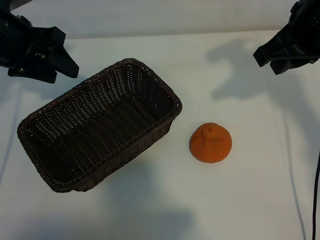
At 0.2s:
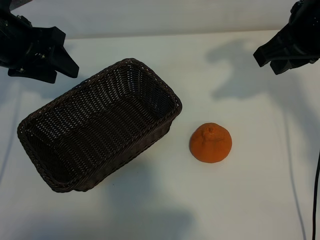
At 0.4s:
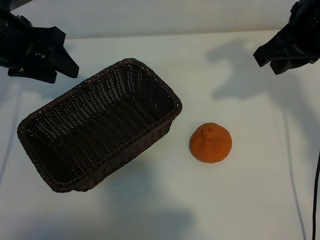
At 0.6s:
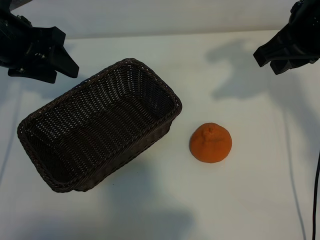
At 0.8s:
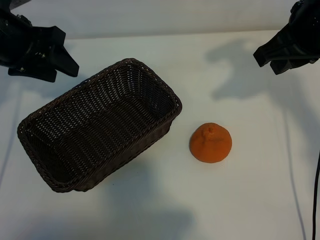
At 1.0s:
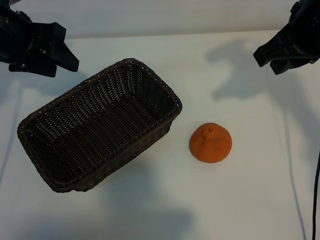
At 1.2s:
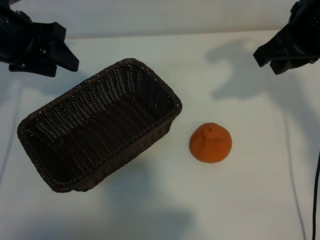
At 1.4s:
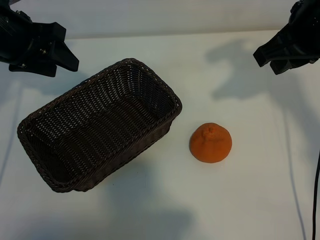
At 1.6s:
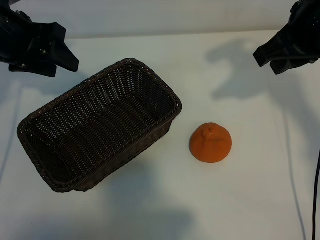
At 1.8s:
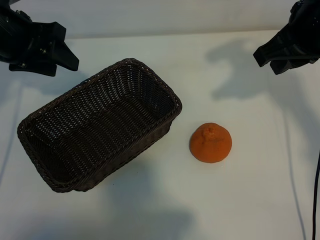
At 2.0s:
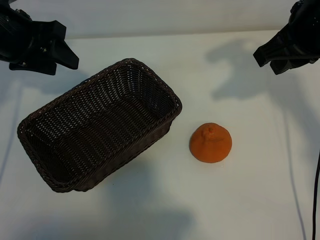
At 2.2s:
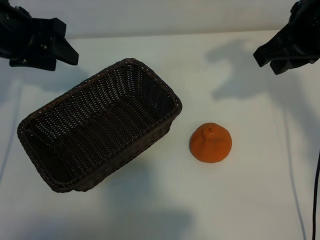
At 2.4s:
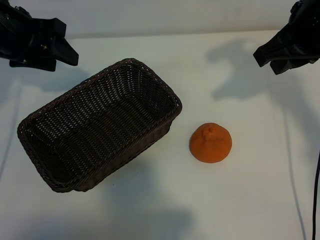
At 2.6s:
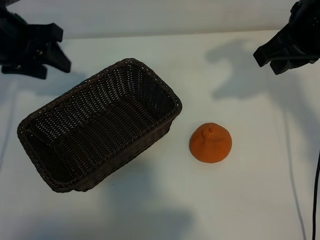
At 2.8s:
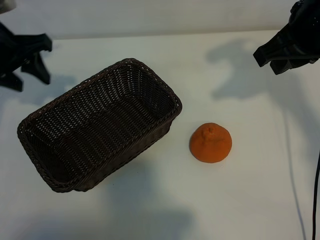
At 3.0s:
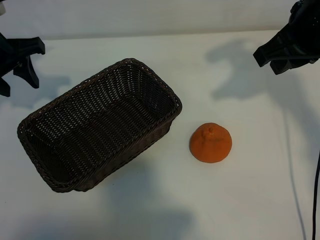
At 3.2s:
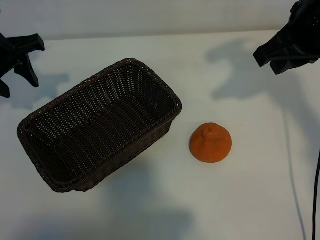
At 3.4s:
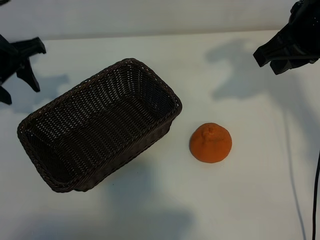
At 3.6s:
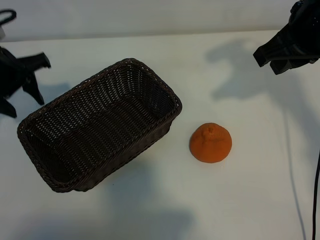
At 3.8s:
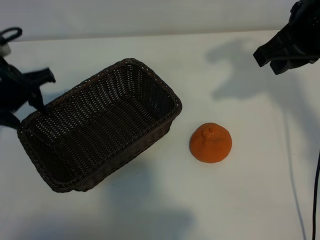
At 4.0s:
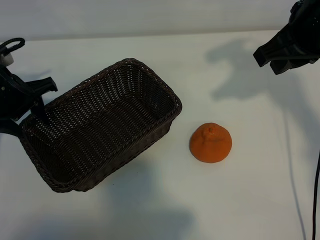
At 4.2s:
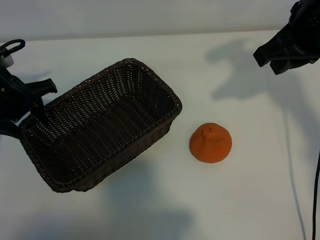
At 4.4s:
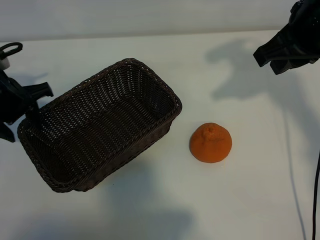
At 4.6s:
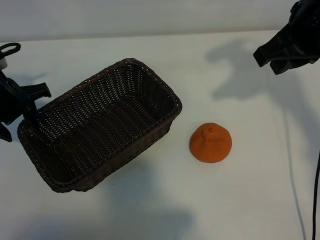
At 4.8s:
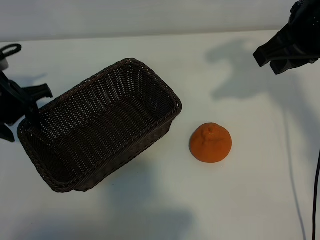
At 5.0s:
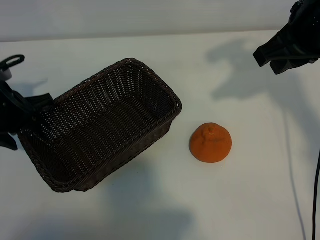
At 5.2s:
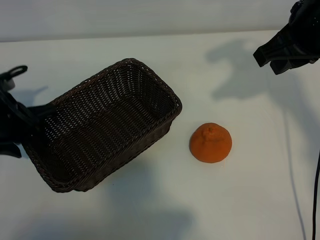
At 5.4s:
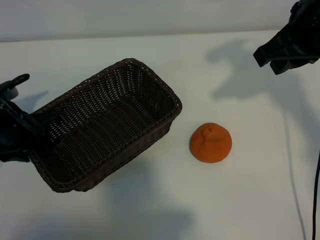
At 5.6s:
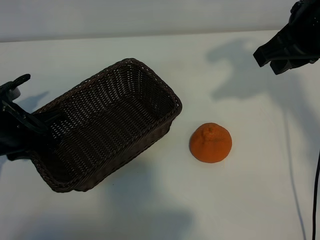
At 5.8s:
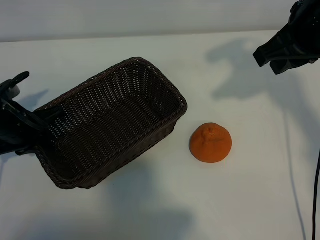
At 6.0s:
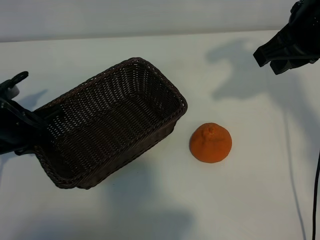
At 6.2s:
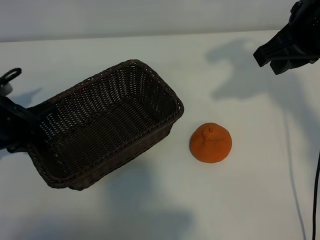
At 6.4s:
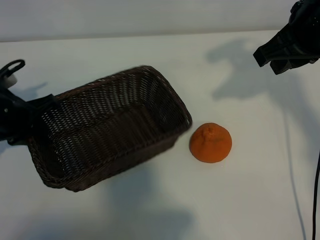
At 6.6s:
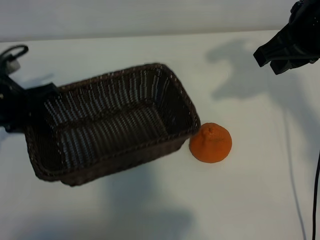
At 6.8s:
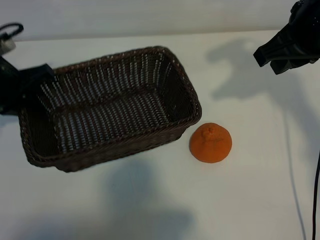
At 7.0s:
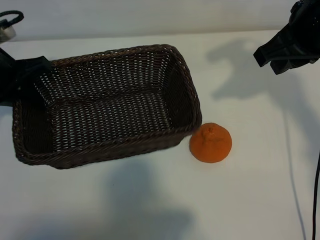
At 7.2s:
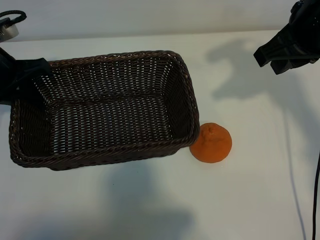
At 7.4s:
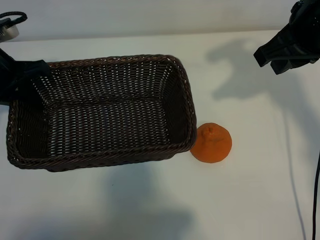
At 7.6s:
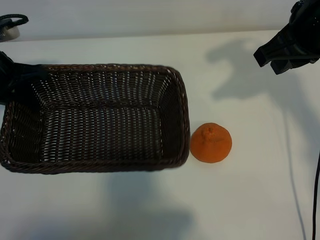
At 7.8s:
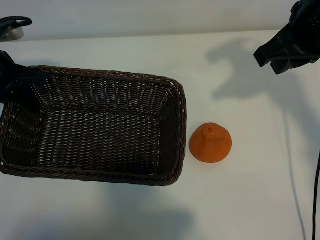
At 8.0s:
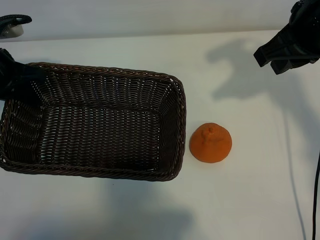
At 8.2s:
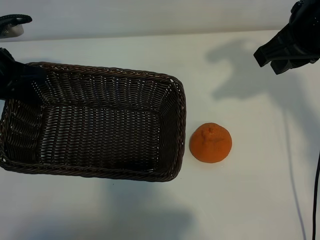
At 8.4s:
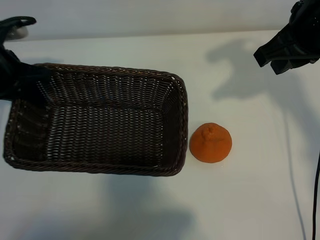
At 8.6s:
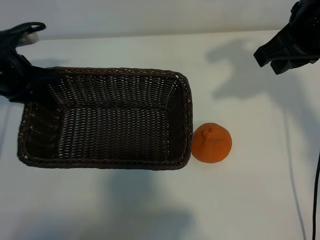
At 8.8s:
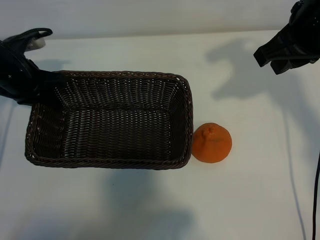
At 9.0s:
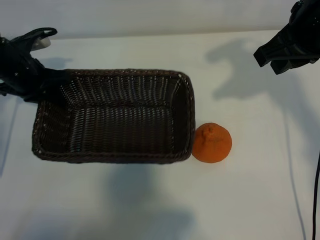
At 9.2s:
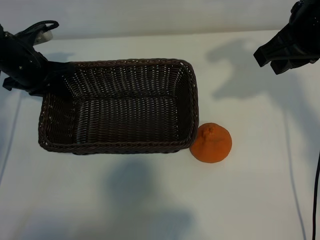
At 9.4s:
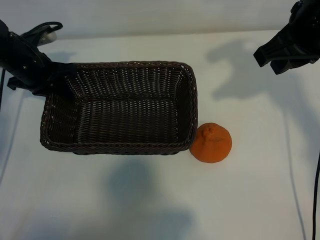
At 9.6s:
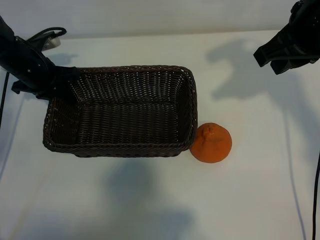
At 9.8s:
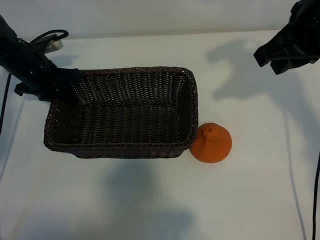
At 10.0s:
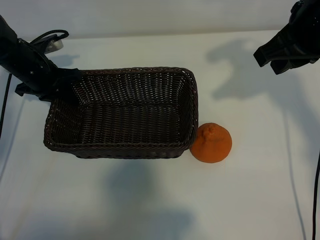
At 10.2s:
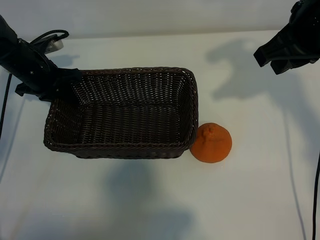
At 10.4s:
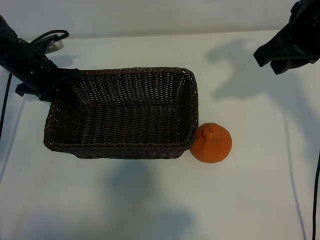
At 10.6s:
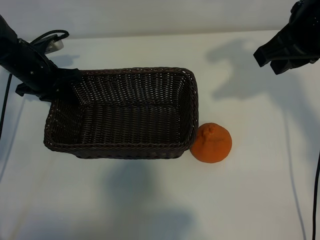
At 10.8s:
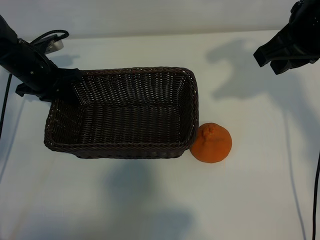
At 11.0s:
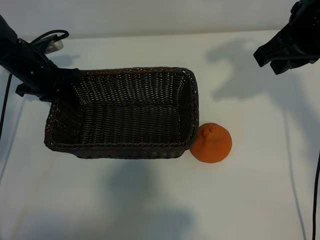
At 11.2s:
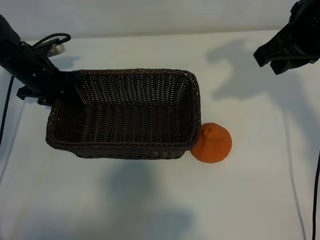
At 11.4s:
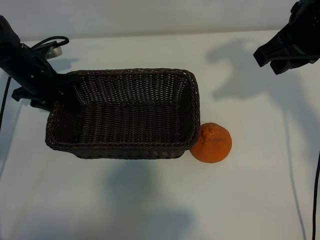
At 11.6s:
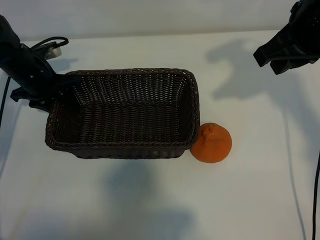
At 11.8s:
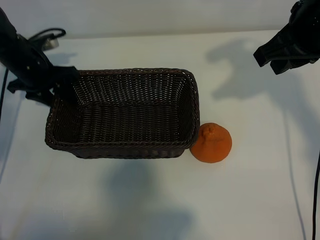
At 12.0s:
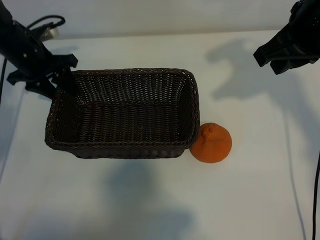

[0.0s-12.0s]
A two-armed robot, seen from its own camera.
Task of the whole recording: pick up the orange and put it into the basket.
Step, 0.8s to 5.8s: Grasp the basket with left gripper.
Step, 6.0s to 11.2s: Place the basket in the center of view with left gripper.

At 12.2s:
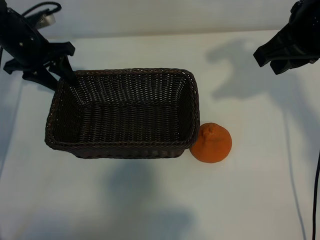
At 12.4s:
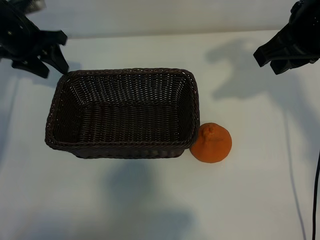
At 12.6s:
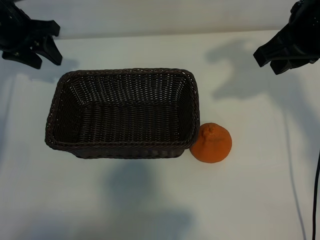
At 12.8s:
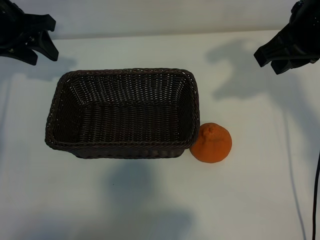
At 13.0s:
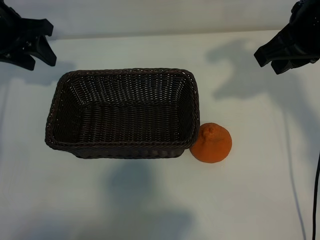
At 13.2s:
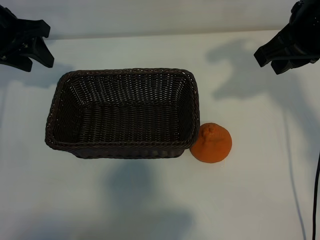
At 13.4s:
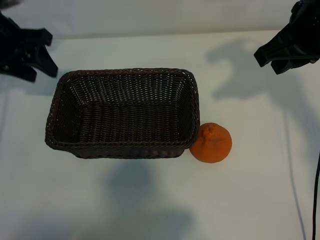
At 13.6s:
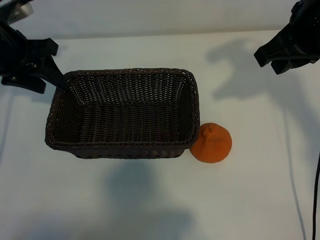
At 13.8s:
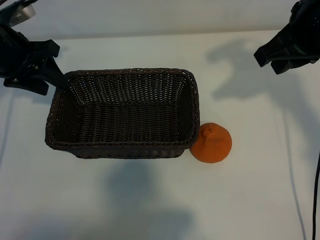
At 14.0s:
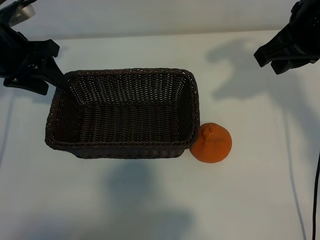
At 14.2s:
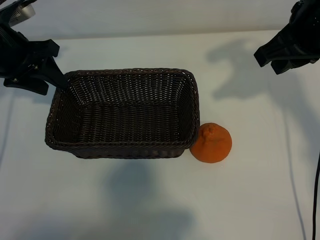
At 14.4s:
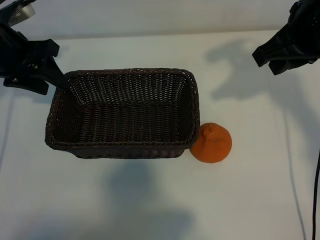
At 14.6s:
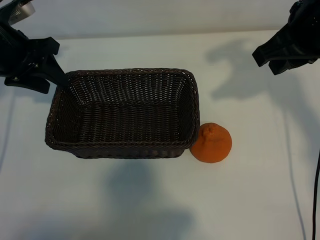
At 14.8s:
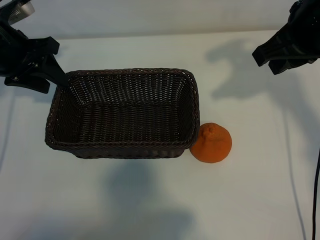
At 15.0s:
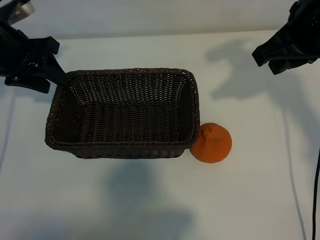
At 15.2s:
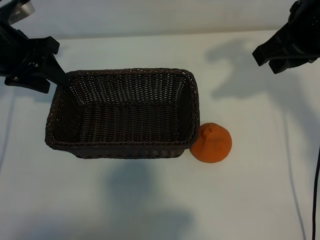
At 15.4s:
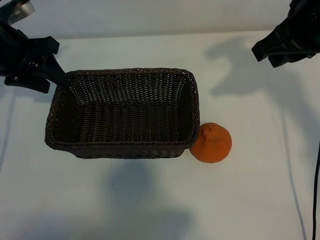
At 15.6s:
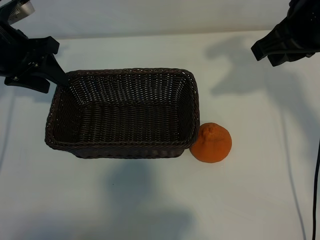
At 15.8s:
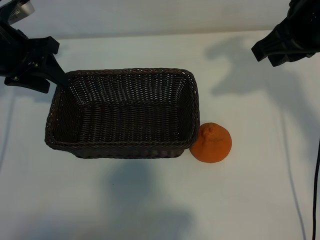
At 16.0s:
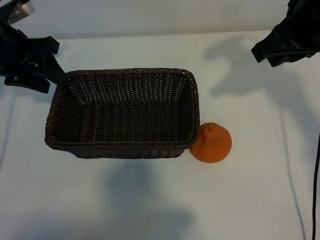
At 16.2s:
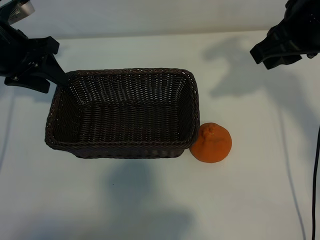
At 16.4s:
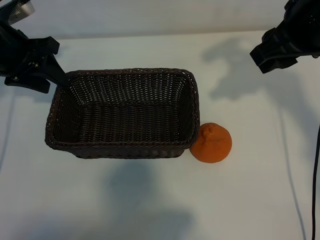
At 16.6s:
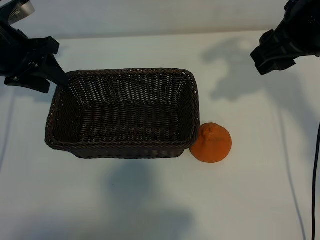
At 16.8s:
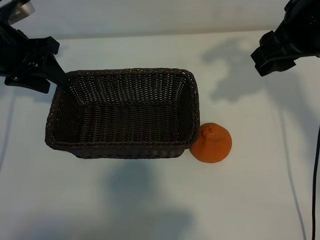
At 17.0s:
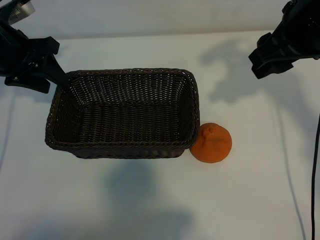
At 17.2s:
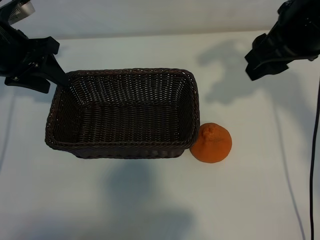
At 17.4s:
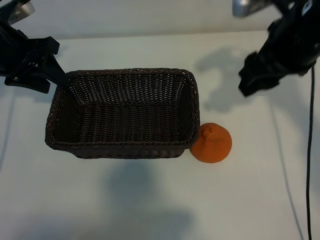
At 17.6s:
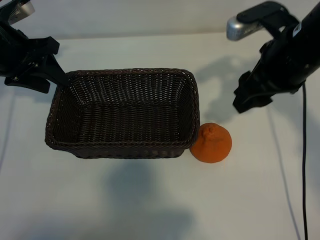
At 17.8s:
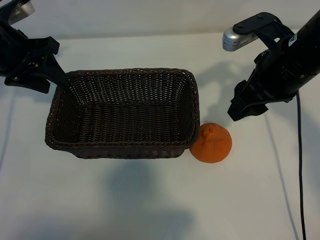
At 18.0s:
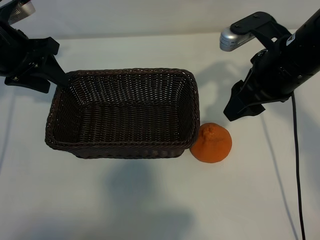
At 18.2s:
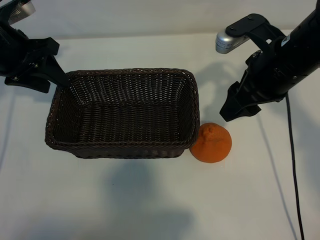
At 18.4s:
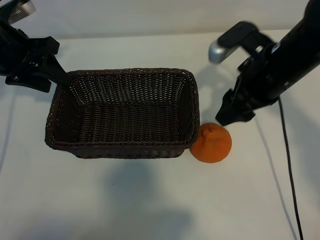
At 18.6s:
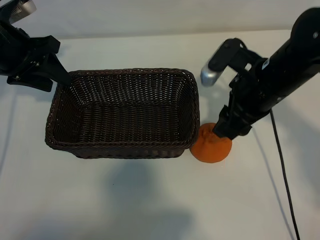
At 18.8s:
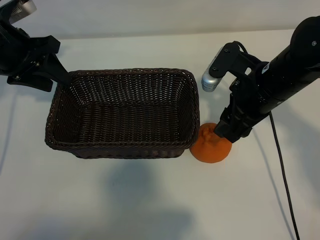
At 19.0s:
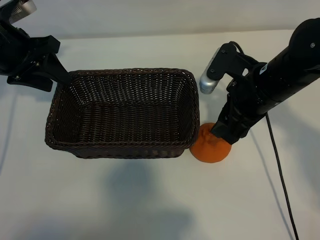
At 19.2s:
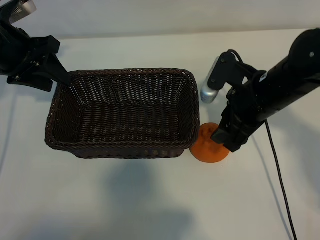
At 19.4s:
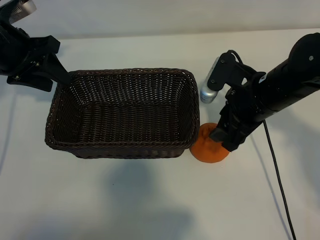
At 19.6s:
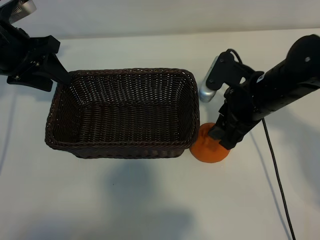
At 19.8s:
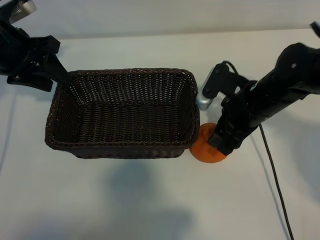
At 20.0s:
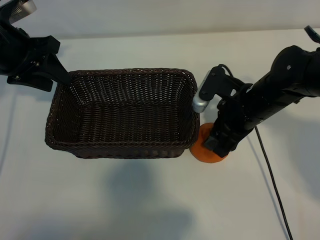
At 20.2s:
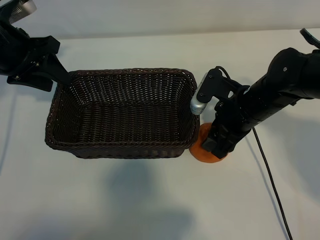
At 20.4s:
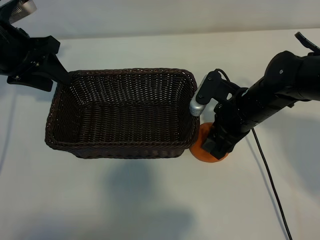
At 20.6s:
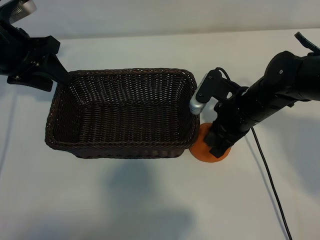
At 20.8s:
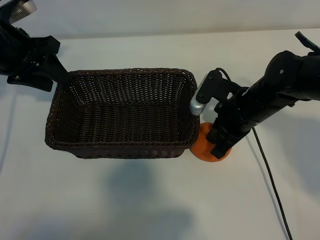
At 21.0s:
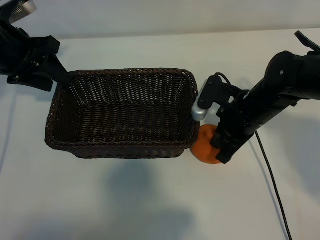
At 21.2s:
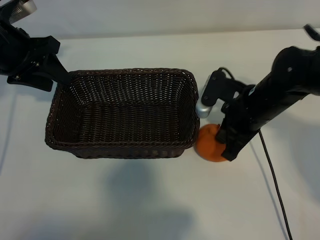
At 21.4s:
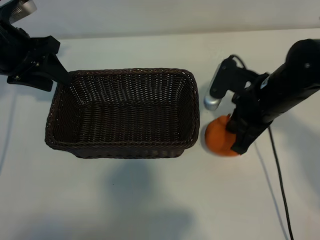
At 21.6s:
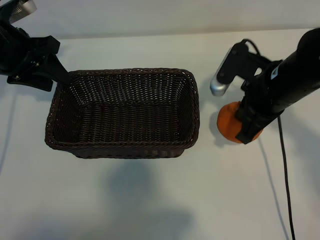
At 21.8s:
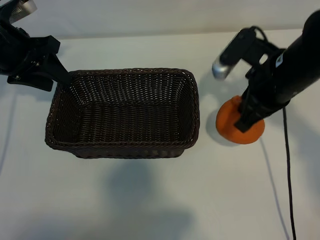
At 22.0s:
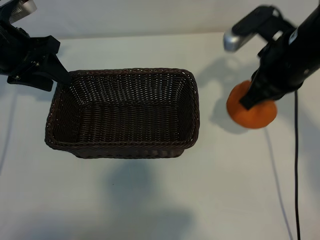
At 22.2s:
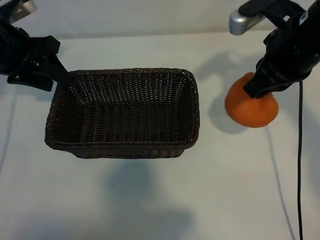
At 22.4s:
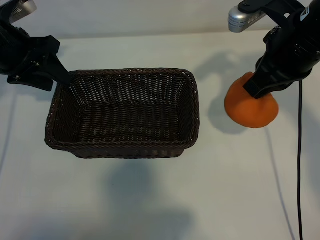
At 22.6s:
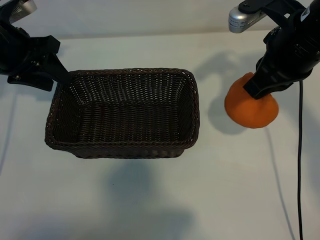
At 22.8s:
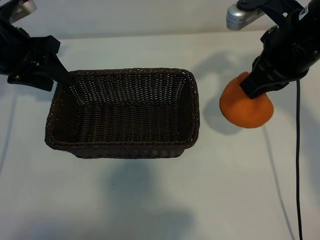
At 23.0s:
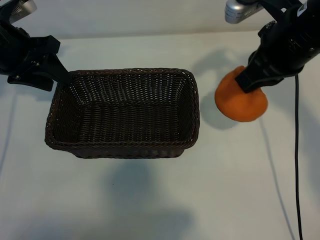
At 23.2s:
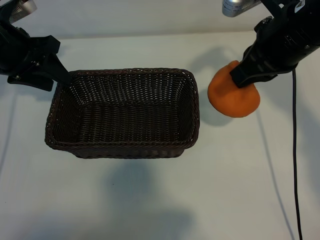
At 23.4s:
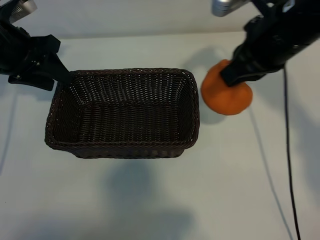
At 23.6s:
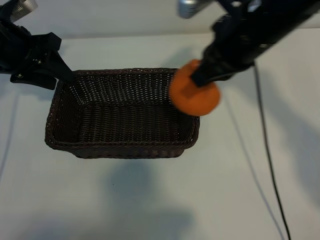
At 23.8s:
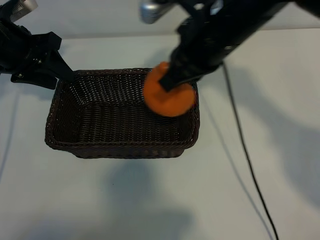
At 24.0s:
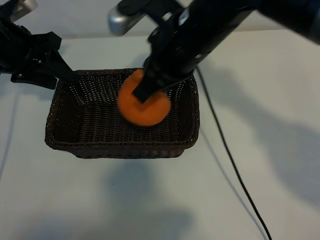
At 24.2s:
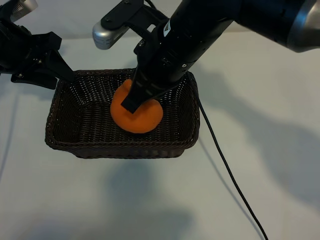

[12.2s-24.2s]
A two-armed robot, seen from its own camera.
Task of the whole recording: pick up the orange and put it into the basket.
Step, 12.2s to 20.6s: Grasp the orange with right gripper.
